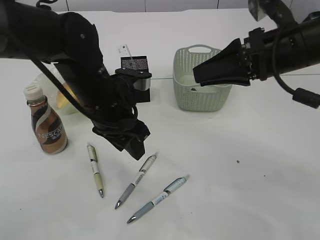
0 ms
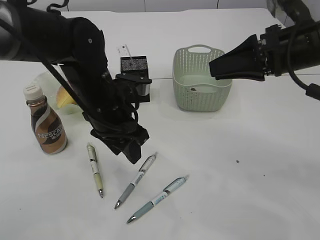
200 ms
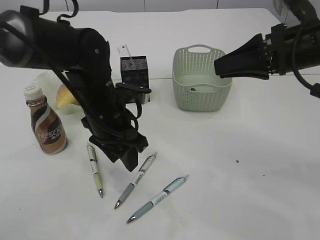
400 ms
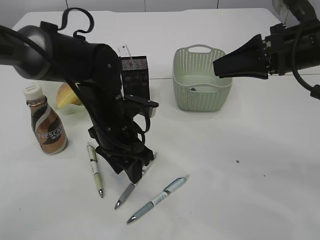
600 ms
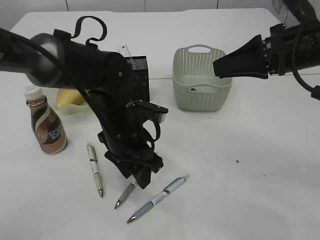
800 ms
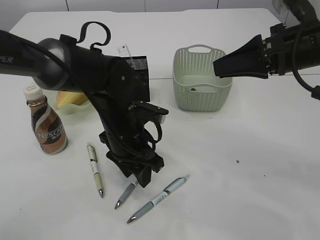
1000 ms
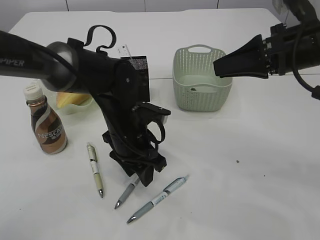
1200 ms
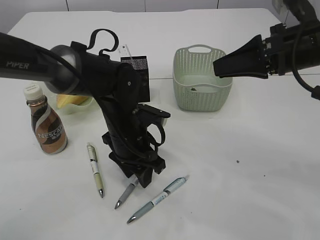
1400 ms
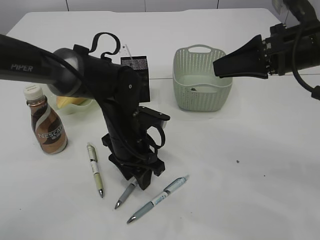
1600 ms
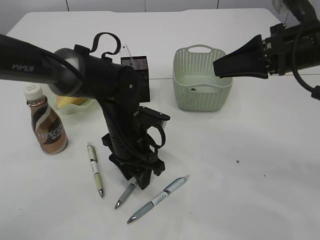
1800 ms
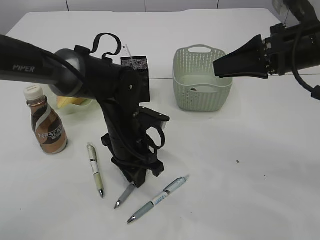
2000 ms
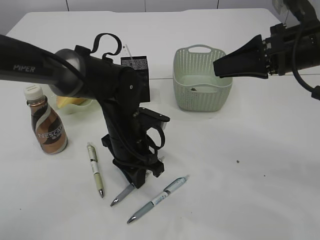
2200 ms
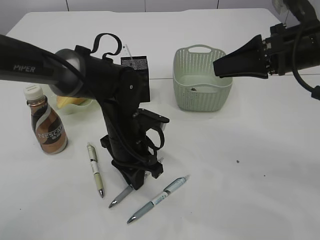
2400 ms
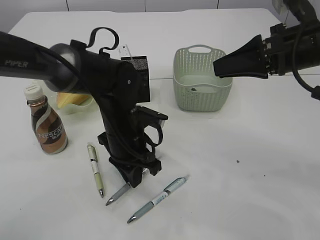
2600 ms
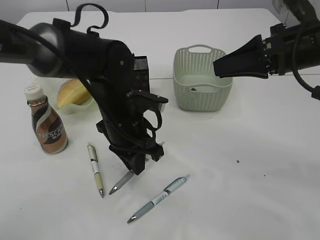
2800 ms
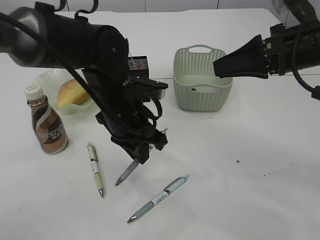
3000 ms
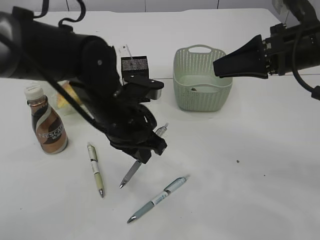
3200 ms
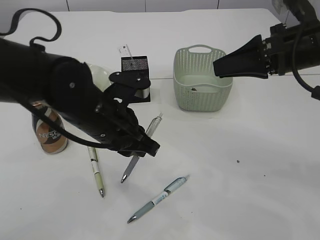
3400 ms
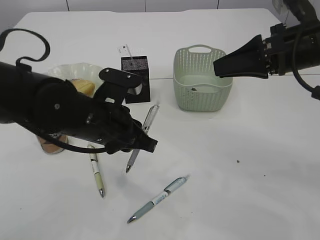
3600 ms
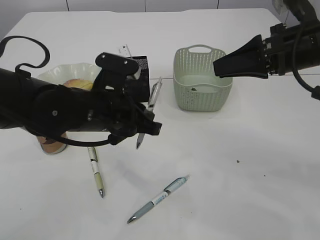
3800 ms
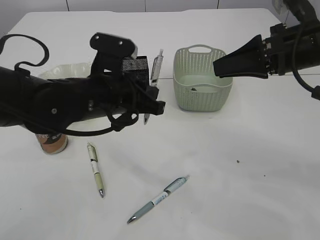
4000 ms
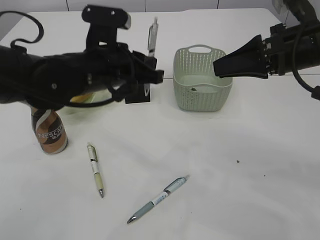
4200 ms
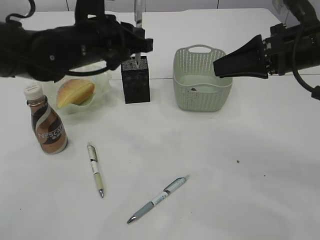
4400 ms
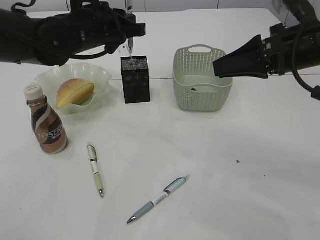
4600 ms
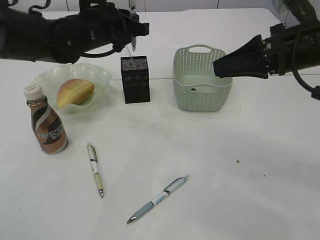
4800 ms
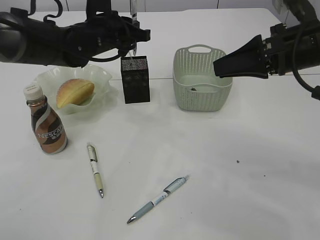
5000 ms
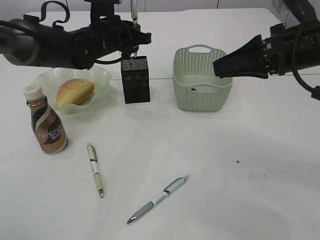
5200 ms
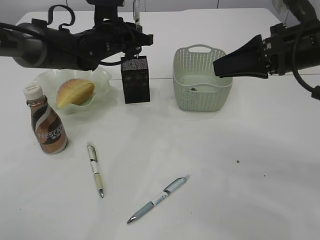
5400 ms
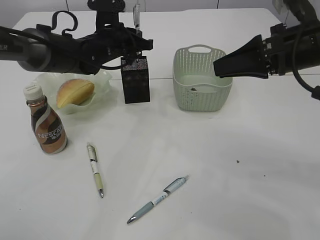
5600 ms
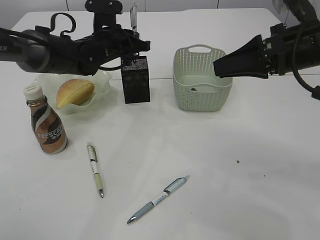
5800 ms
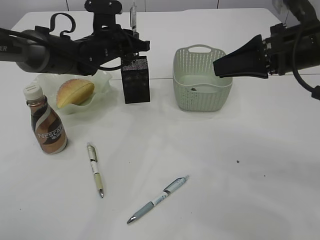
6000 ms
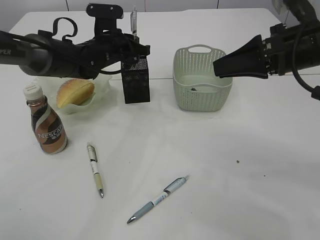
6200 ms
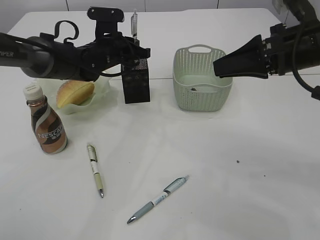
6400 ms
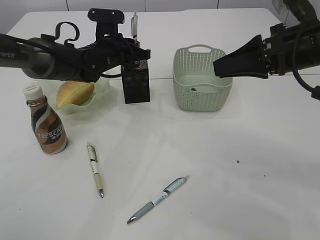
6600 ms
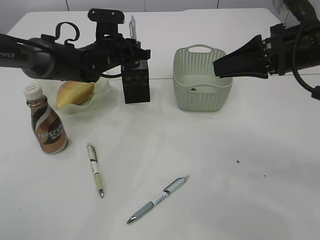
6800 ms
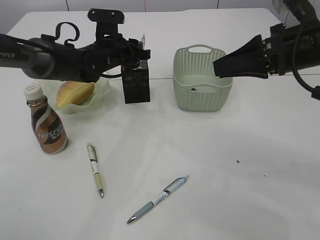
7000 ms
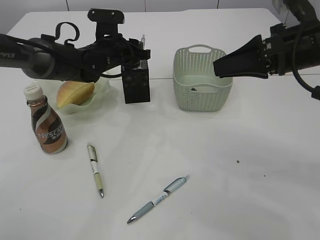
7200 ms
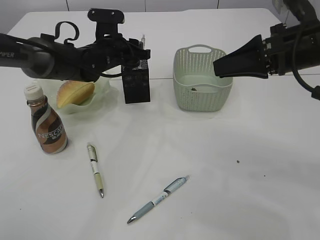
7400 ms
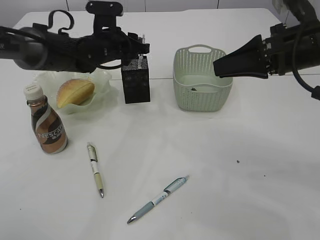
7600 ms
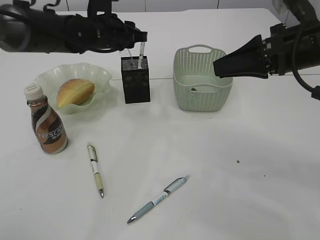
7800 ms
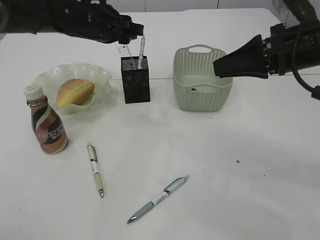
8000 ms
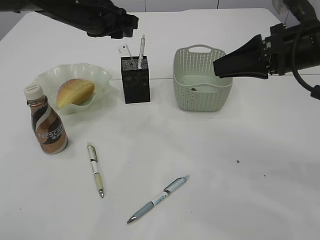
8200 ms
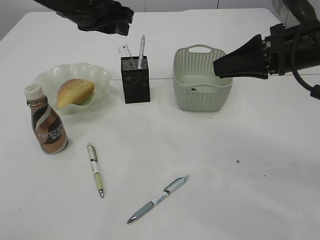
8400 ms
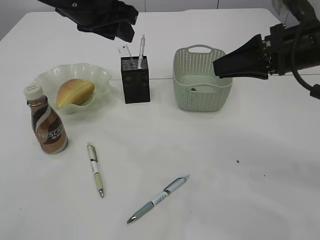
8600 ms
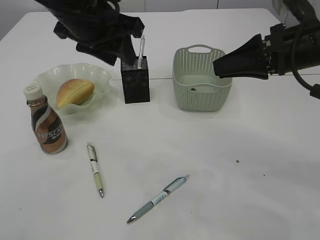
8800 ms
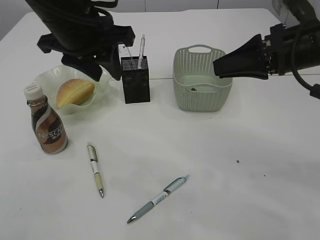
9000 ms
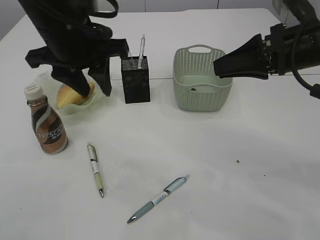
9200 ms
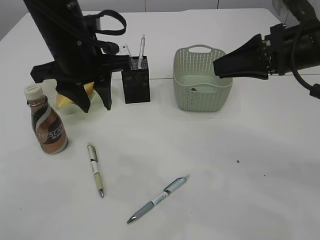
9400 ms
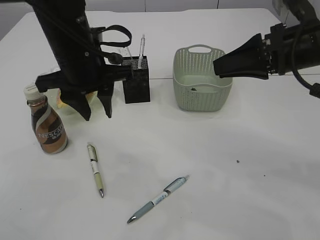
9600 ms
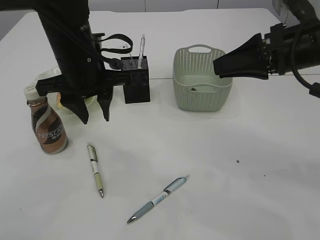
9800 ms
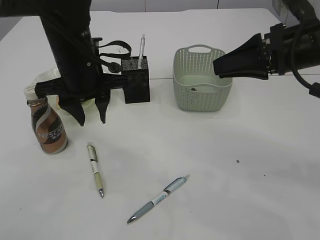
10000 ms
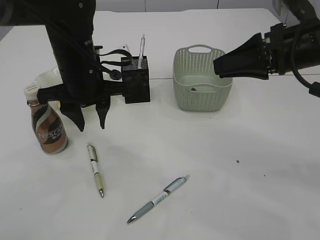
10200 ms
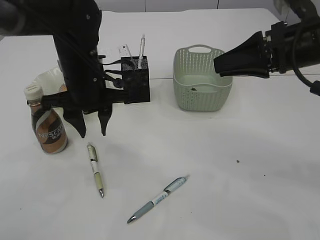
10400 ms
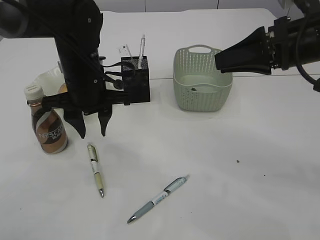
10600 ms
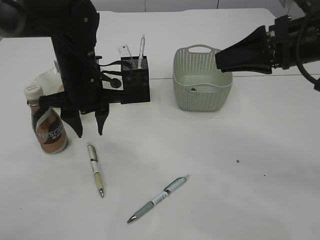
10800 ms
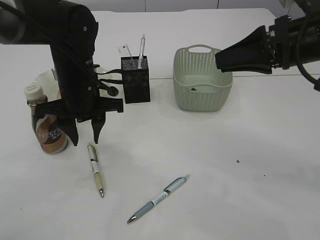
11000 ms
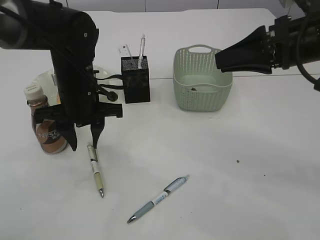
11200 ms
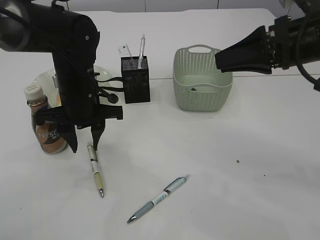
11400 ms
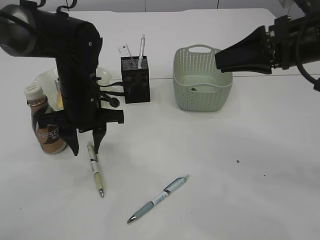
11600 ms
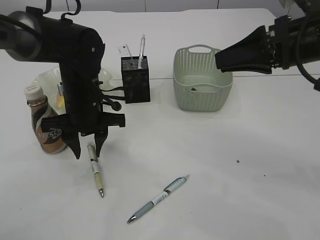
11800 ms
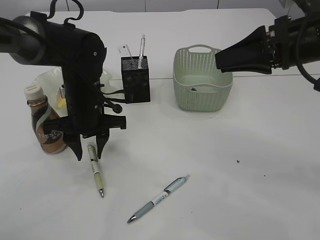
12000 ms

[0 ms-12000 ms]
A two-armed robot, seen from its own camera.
Step, 0 ms to 3200 ms: Pick up the pen with left arm.
Step, 3400 ms to 8200 ms: Place the pen into the pen holder.
0 ms to 1600 ms: The left gripper moves downward, about 10 cm.
1600 ms to 3000 ms: The left gripper heads upward, covering approximately 5 cm, and closes up.
3000 ms to 4400 ms: The left gripper goes some 10 cm upward.
4400 ms to 6000 ms: The left gripper moves forward and downward, roughly 15 cm.
6000 ms to 7600 ms: The left gripper opens.
7600 ms to 9000 ms: The left gripper moves backward and upward, some 20 cm.
9000 ms to 10400 ms: The left gripper shifts approximately 10 cm downward.
10400 ms to 12000 ms: The left gripper heads downward, covering some 5 cm.

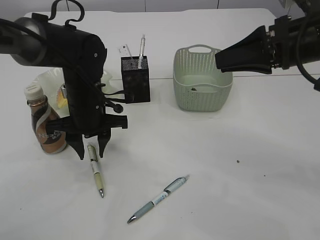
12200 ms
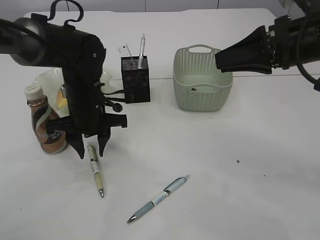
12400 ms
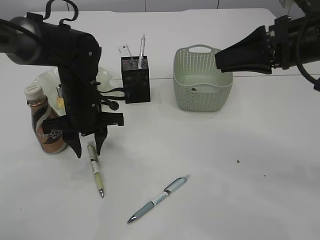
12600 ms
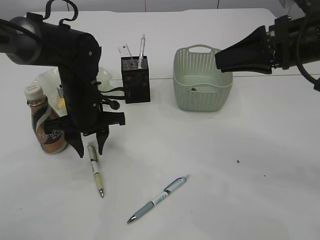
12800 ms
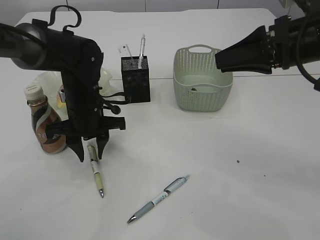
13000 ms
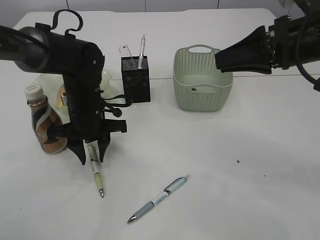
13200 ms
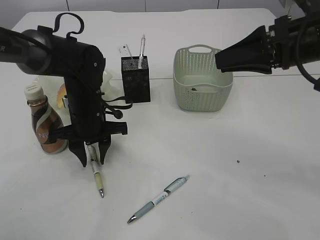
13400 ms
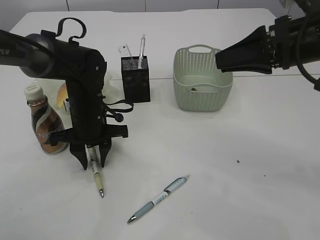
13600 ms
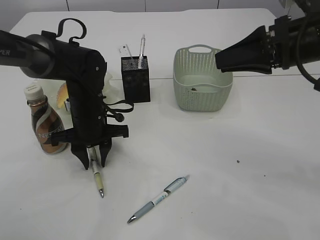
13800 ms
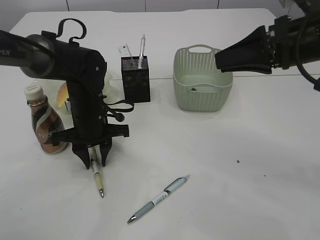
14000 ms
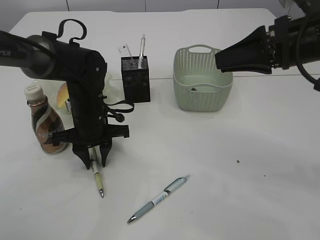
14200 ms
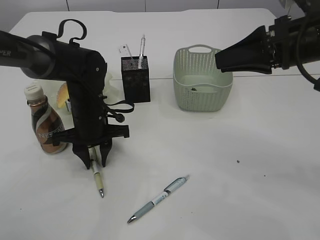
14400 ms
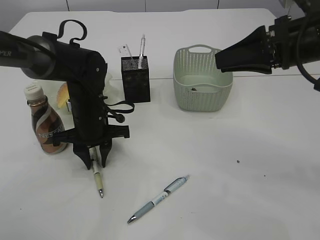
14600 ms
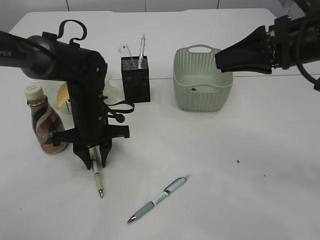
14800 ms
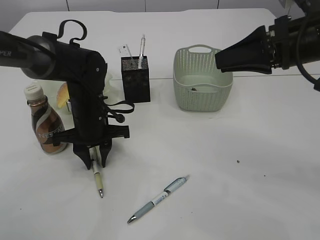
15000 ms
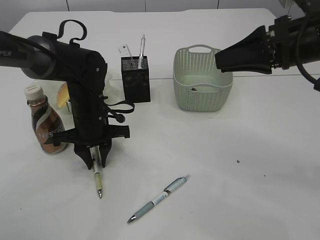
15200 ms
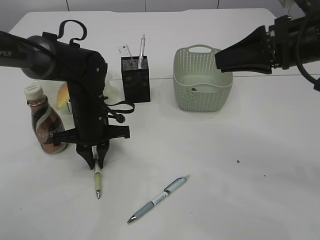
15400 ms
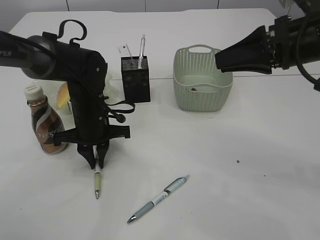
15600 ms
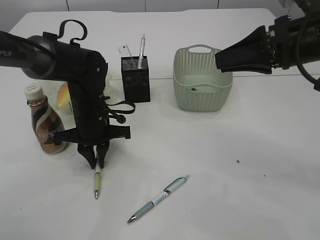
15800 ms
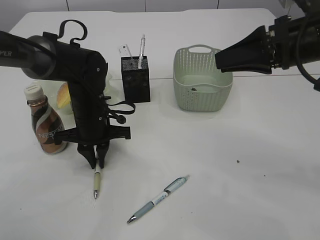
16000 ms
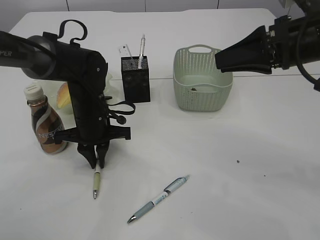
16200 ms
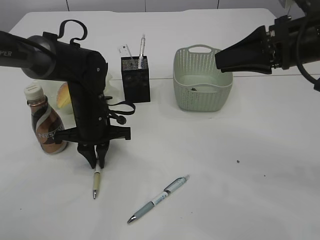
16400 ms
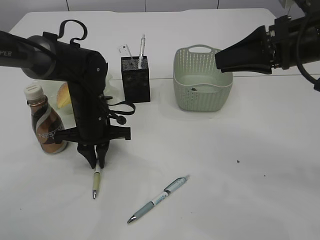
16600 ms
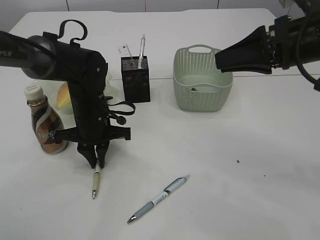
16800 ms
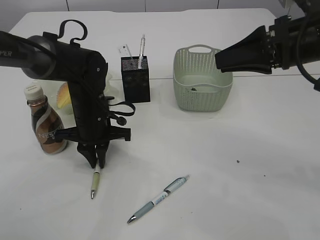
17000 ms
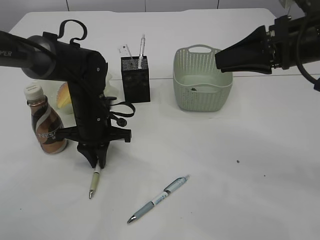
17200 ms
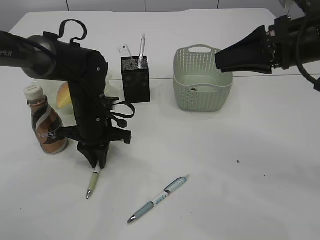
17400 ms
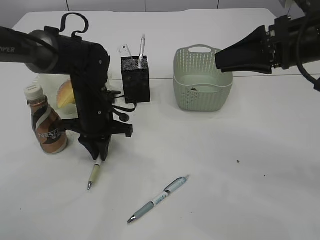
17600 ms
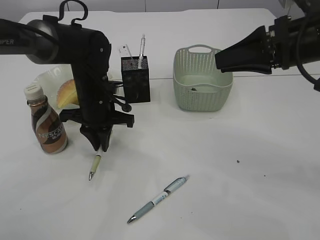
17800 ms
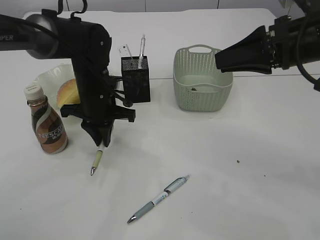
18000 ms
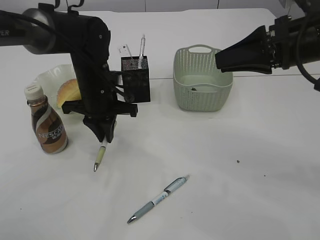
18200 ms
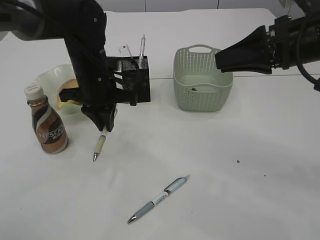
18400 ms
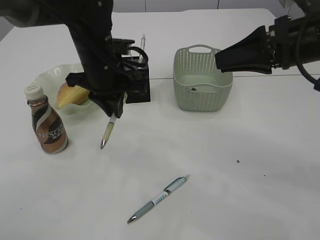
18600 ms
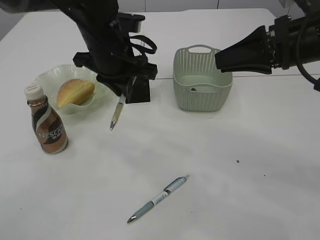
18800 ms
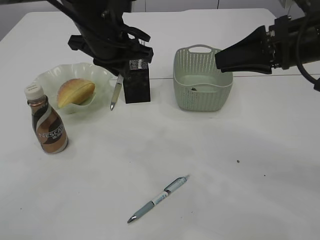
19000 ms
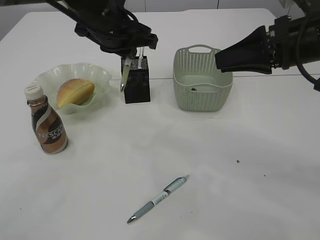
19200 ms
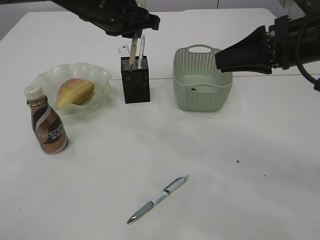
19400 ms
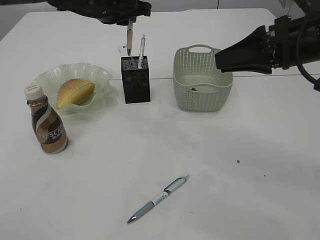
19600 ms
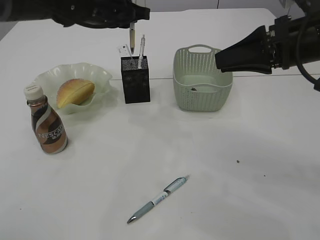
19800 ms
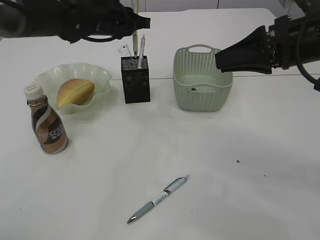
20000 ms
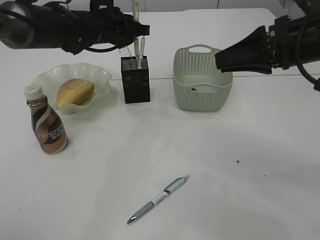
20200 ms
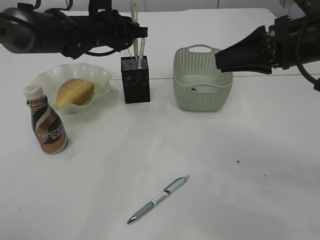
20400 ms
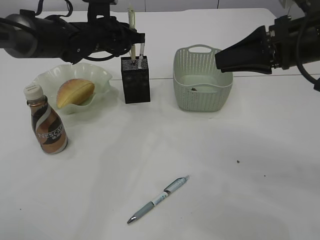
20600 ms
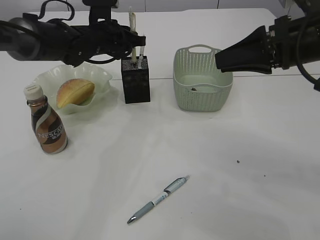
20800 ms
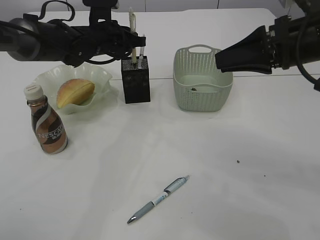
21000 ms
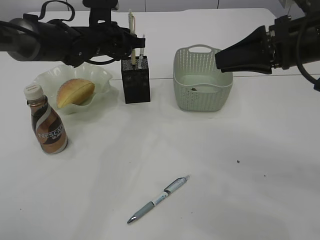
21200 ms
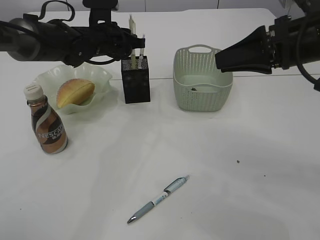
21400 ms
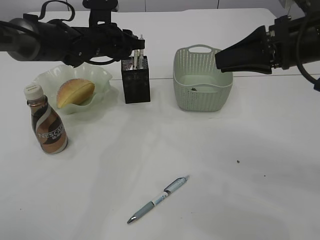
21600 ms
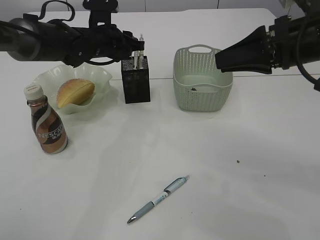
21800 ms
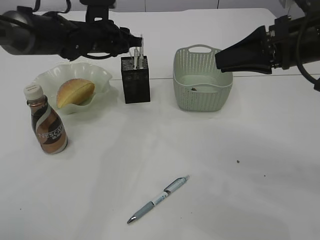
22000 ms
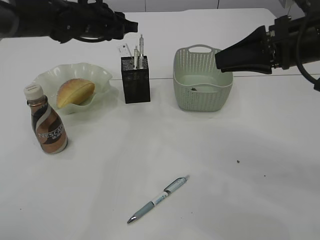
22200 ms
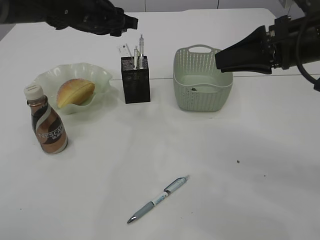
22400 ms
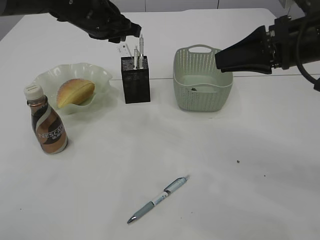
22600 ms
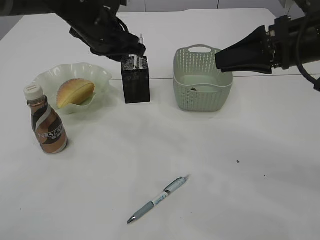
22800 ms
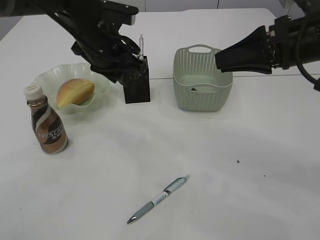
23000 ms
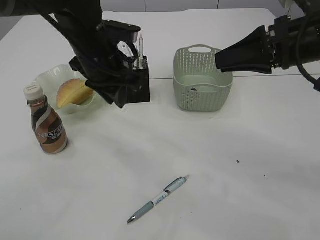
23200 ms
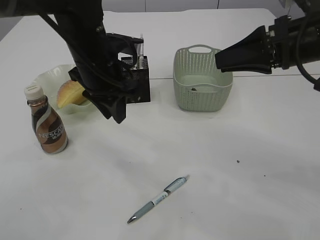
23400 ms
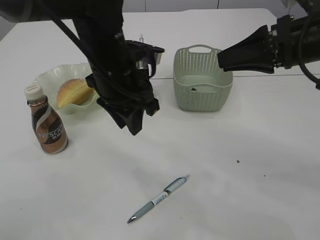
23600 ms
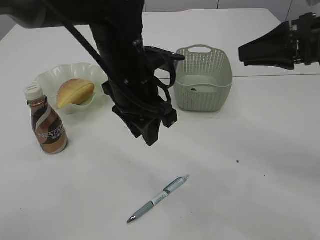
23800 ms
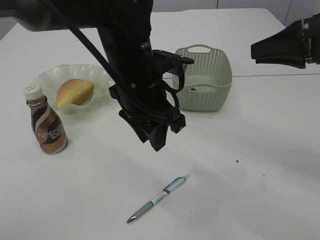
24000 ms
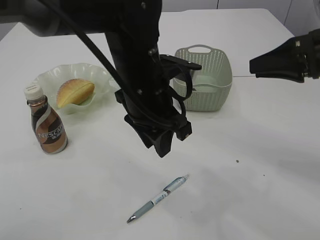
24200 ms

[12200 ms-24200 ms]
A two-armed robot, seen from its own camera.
Step, 12200 ms to 18000 ms: Pick up the pen with left arm.
Step, 18200 ms to 22000 ms: Place the pen into the pen holder.
12200 ms to 13800 ms: The grippers stay close to where they were, moving slightly.
13800 ms to 15200 ms: Both grippers stay put.
15200 ms to 16600 ms: There are only small adjustments of the grippers.
16600 ms to 18200 ms: The left gripper shifts by about 5 cm.
18200 ms to 19800 ms: The left gripper shifts roughly 15 cm upward and forward.
19800 ms to 21200 ms: The left gripper shifts some 10 cm downward.
21200 ms to 22600 ms: The left gripper is displaced upward and backward by roughly 10 cm.
22600 ms to 24200 ms: The right gripper heads to the right, covering about 5 cm, while the left gripper goes some 15 cm backward and to the right.
